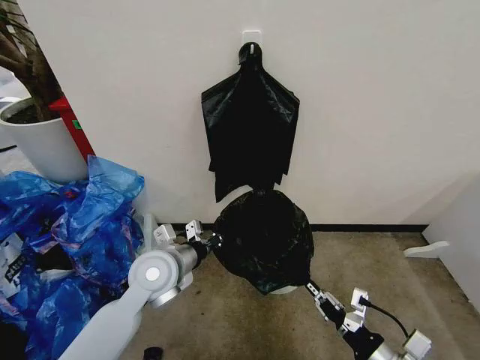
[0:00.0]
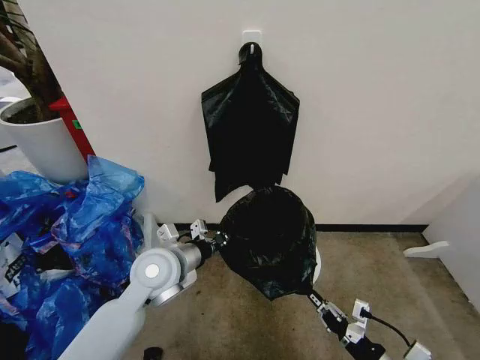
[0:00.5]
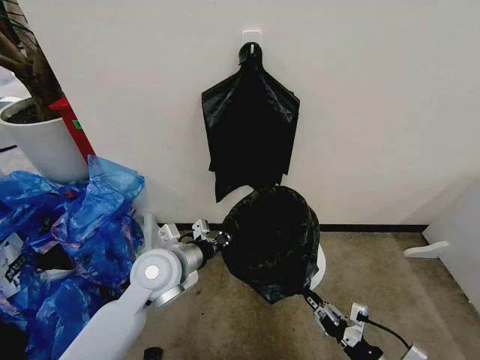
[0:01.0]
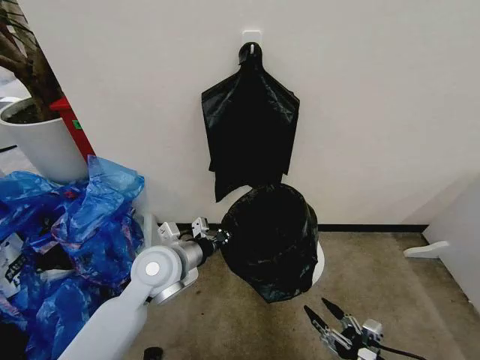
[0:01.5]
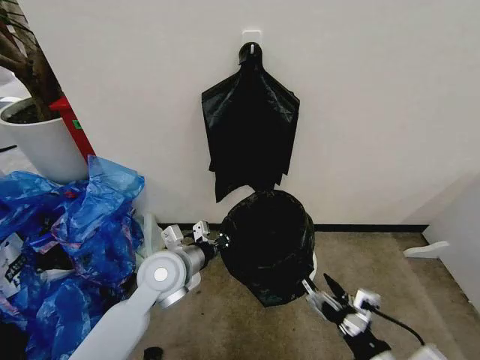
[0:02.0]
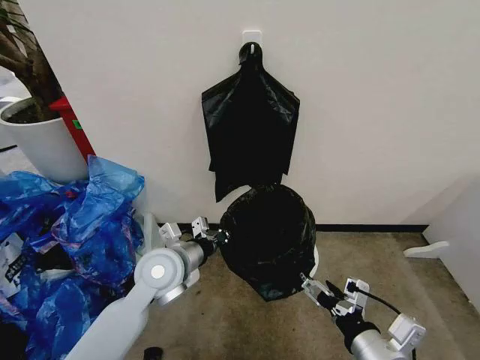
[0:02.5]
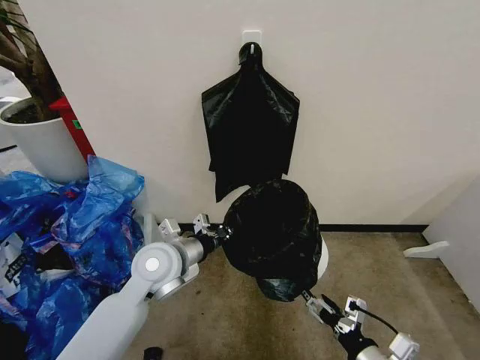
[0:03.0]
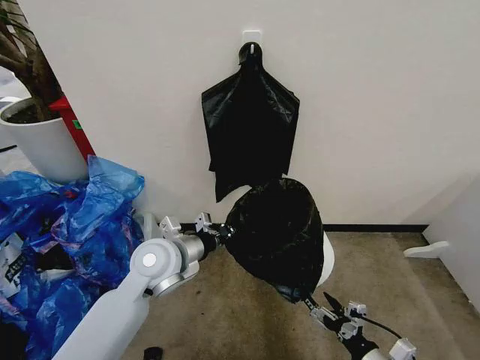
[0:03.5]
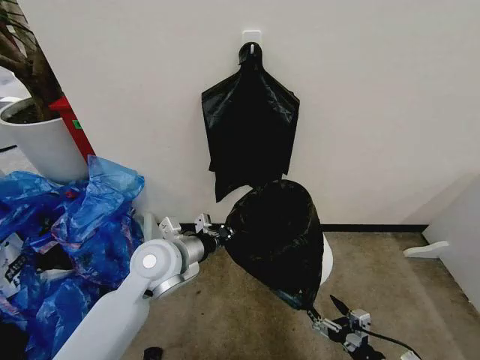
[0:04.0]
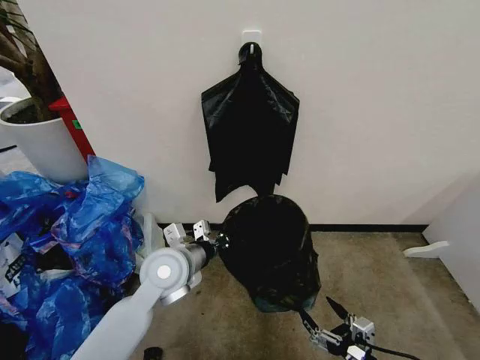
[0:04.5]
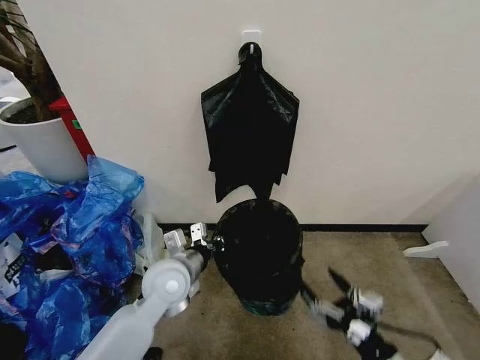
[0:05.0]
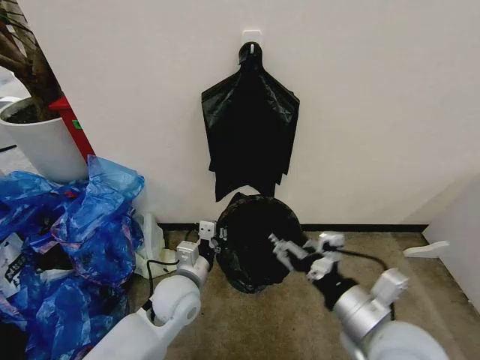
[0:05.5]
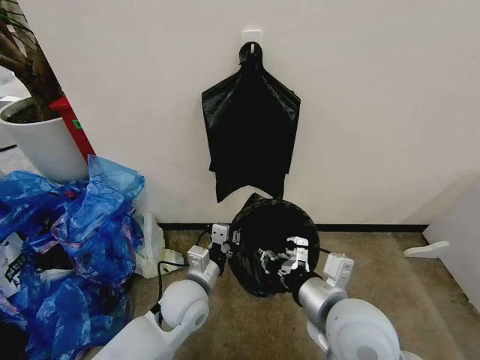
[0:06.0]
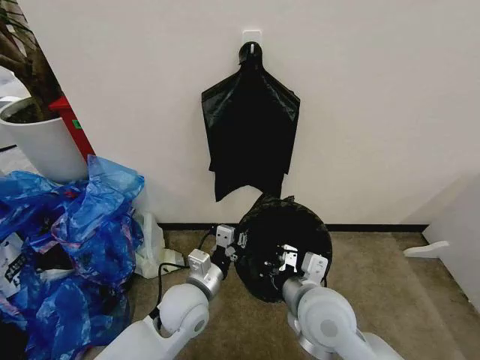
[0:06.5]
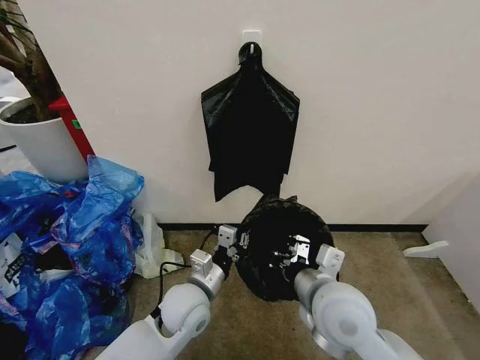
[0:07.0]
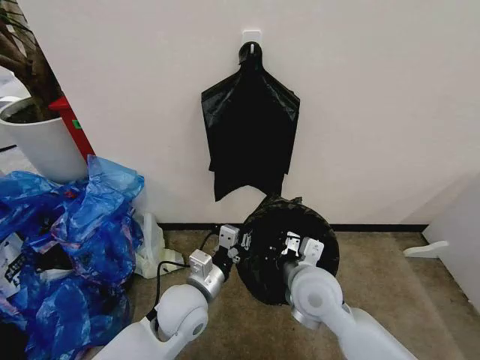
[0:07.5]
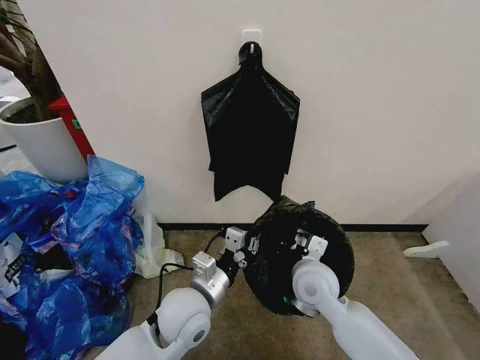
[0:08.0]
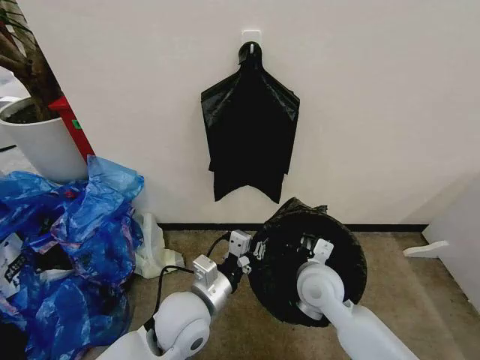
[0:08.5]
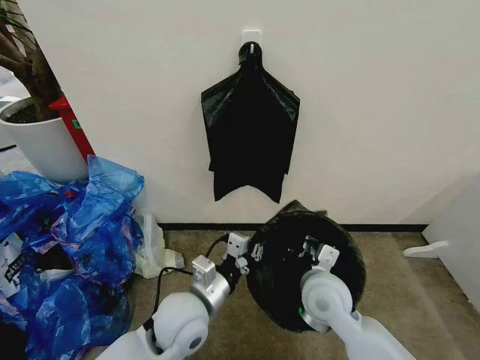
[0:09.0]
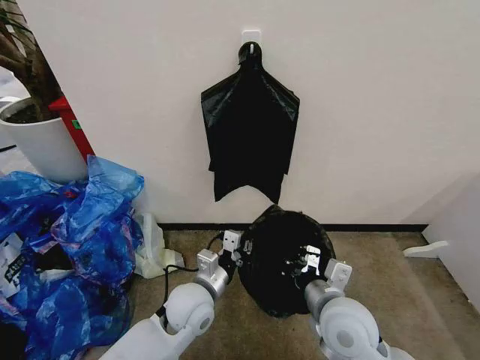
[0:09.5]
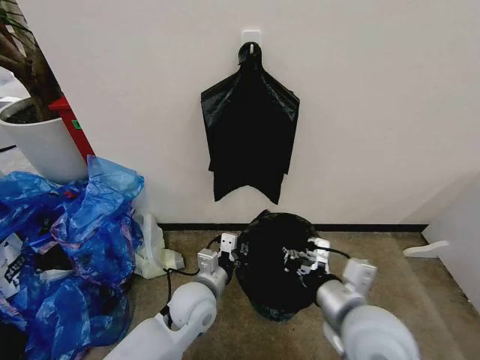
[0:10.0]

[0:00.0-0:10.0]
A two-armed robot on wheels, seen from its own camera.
Task of the whole recording: Place the garbage bag over the trash bin.
0:00.0 to 0:02.0: The right gripper goes approximately 5 cm upward, and opens its fingers.
0:02.0 to 0:04.0: The right gripper goes some 15 cm downward and to the right.
0:04.0 to 0:06.0: The left gripper heads downward, covering roughly 10 cm. Meanwhile the right gripper is displaced upward, to the left and forward by about 30 cm, and closes up.
0:06.0 to 0:08.0: The left gripper shifts by some 5 cm; the right gripper is displaced forward and downward by approximately 15 cm.
0:08.0 to 0:10.0: The right gripper goes roughly 15 cm backward and upward; the left gripper moves approximately 5 cm.

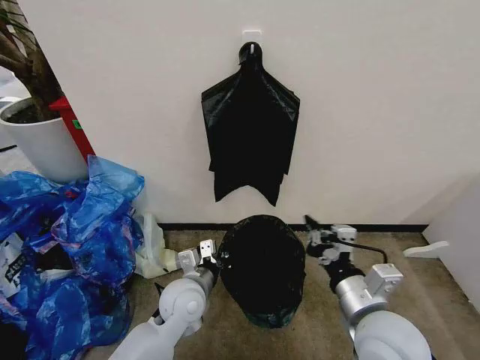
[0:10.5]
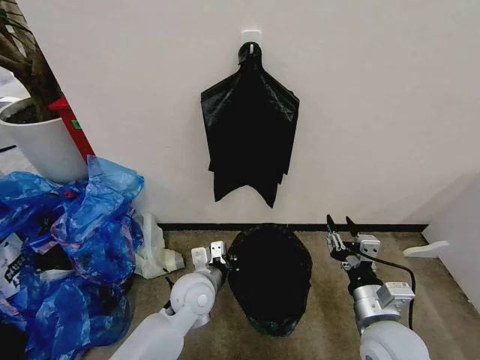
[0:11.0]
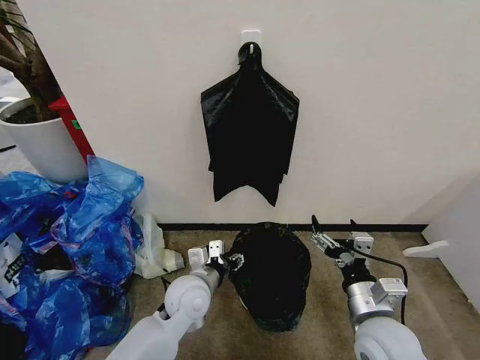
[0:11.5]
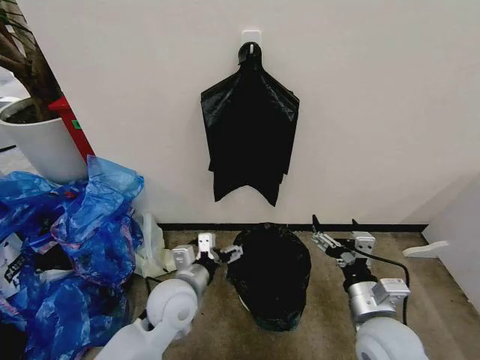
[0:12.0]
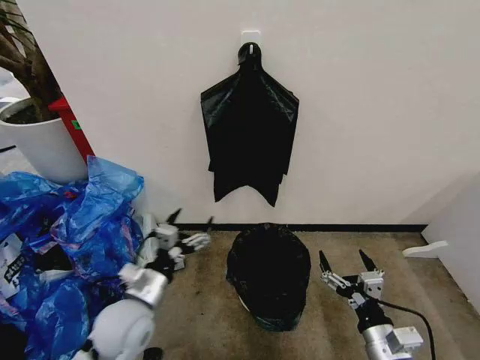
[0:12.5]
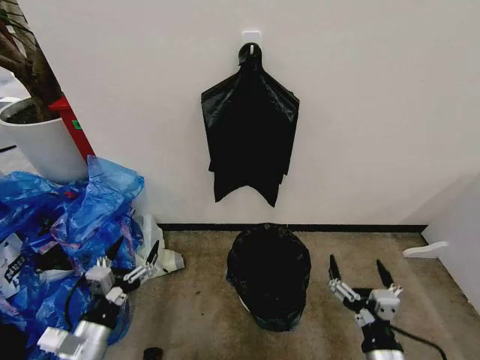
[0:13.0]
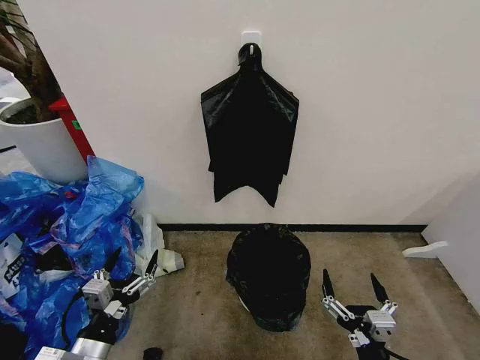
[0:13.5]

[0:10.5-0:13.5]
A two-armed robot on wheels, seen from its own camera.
Task of the whole recording: Place the garbage bag over the trash bin.
0:10.5 to 0:12.0: The right gripper moves downward, roughly 5 cm, and opens up, while the left gripper opens its fingers.
0:12.0 to 0:13.5: The right gripper heads backward and downward, covering roughly 15 cm, while the left gripper shifts approximately 20 cm backward and to the left.

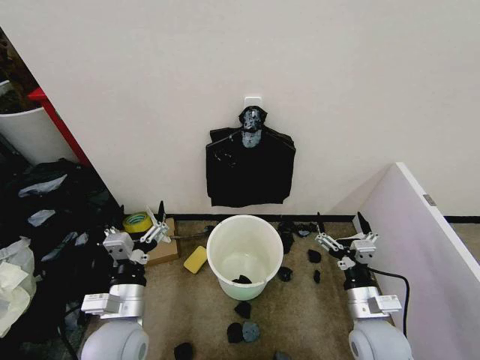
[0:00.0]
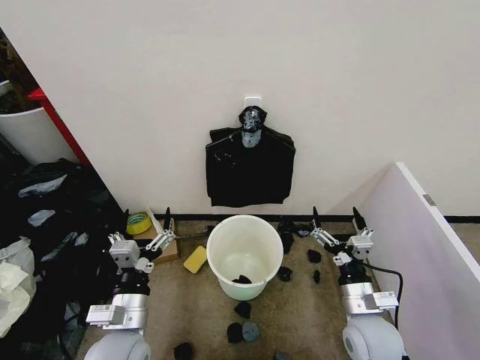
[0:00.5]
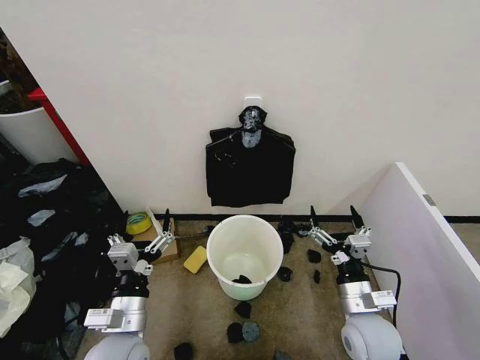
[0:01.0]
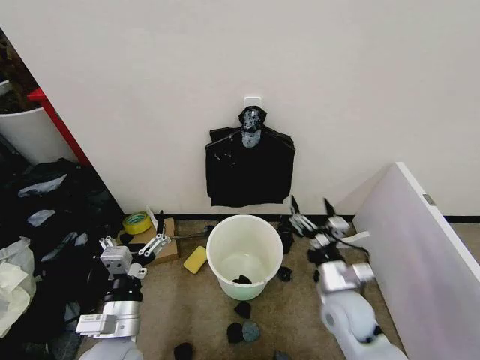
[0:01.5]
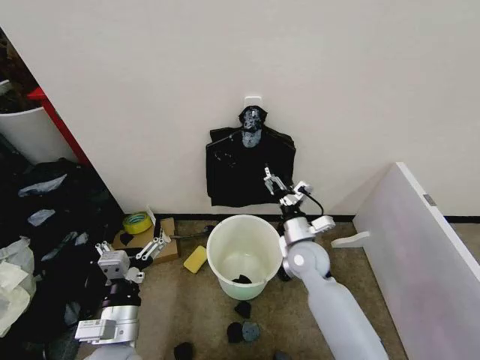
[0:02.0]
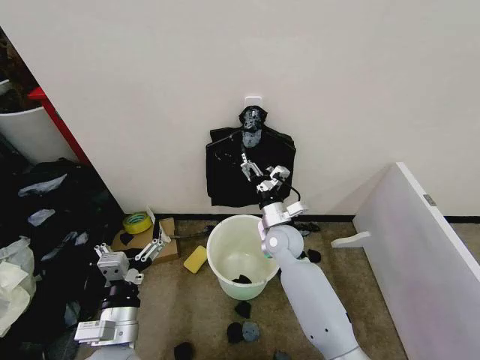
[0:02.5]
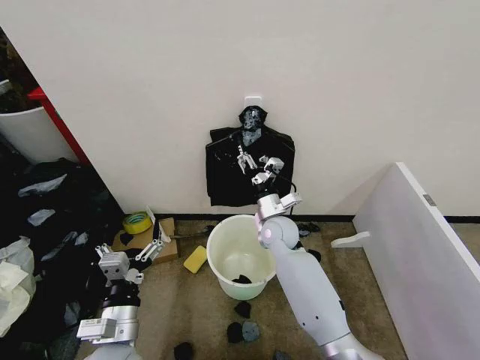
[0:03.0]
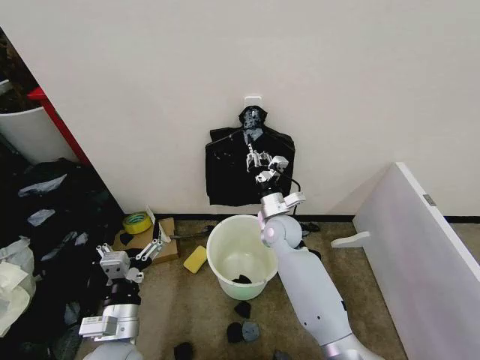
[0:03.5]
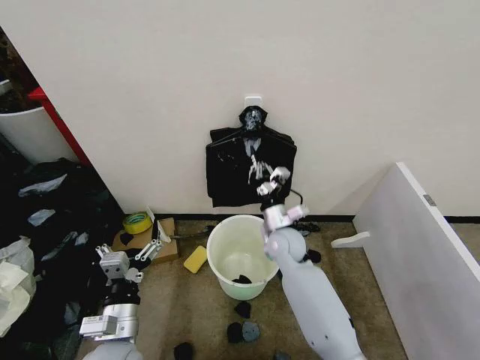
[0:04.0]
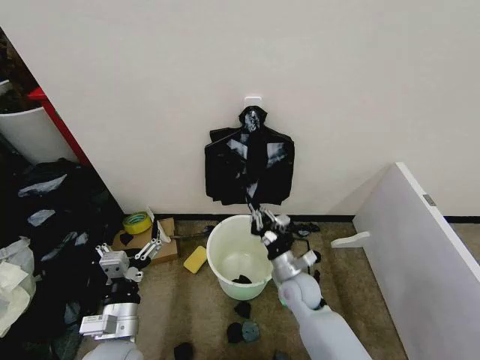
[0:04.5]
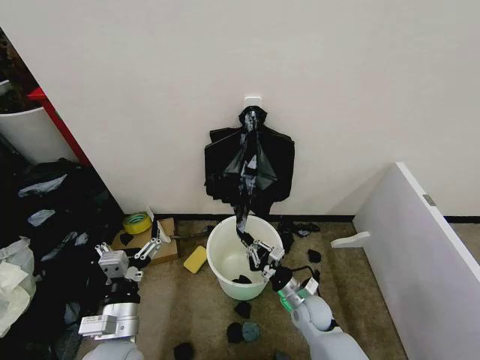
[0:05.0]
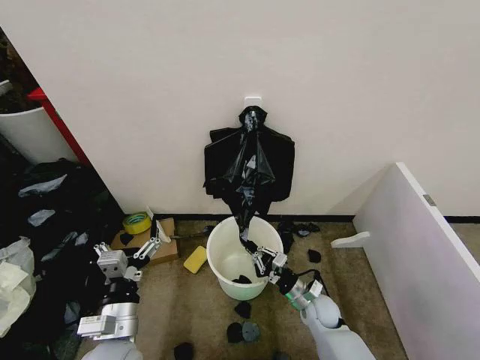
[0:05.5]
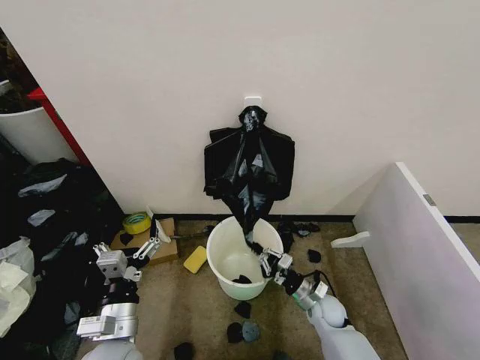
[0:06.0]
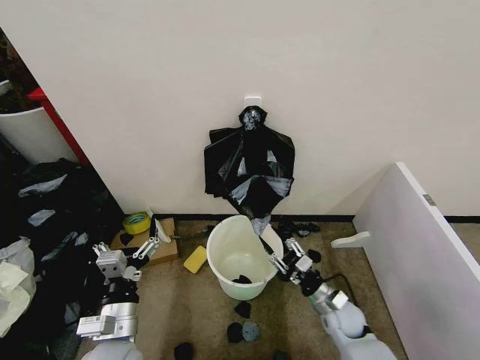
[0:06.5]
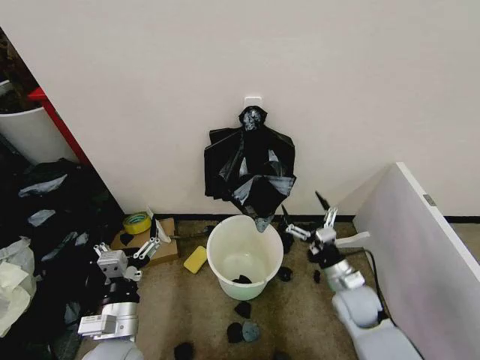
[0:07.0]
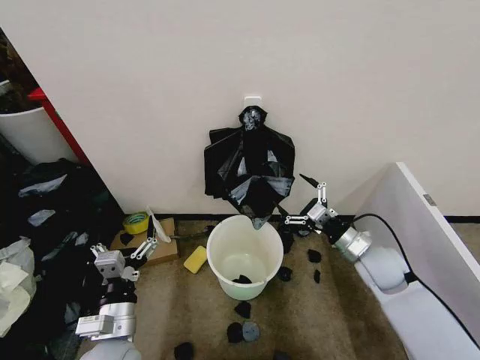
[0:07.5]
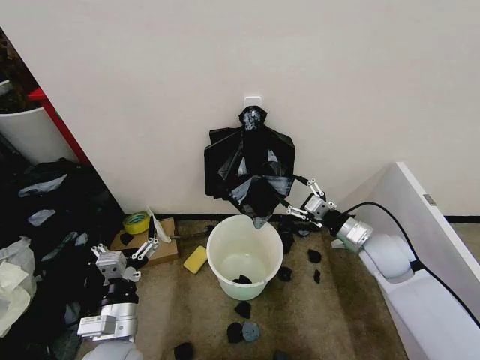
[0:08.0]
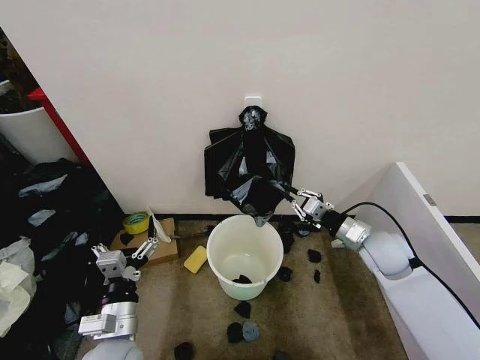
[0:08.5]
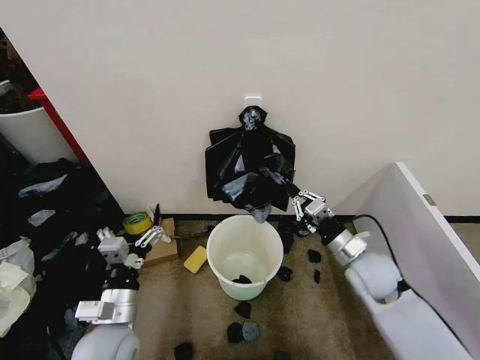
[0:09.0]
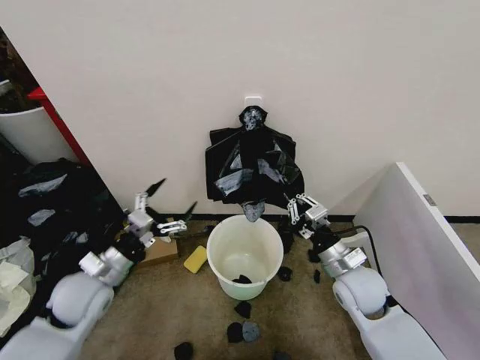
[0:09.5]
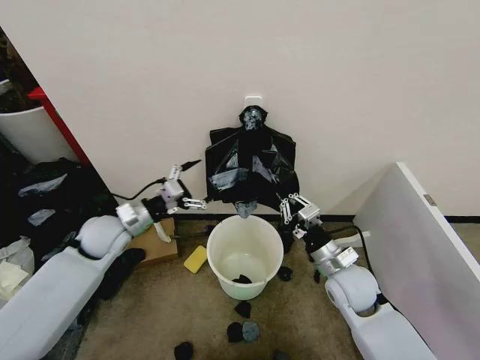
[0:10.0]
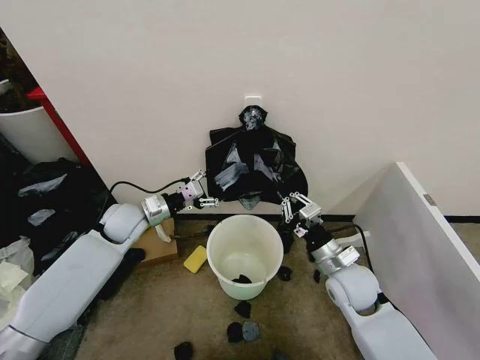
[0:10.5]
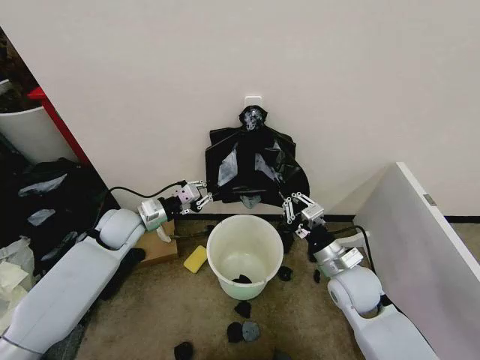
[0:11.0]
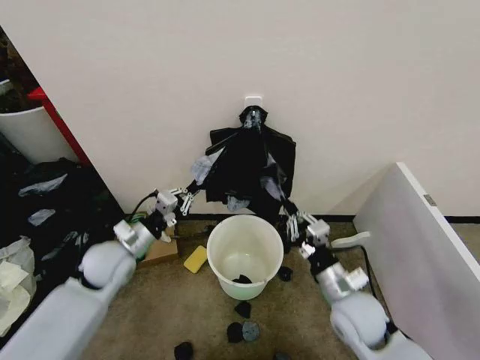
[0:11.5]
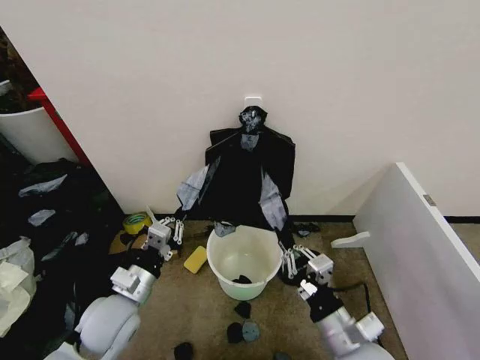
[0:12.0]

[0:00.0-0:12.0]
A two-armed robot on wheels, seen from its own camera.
Task of the whole recording: Place the garbage bag over the trash bin.
0:02.0 to 0:04.0: The right gripper goes some 10 cm to the left and forward, and closes its fingers.
0:04.0 to 0:06.0: The right gripper shifts some 25 cm downward, to the right and backward.
0:06.0 to 0:08.0: The right gripper travels upward by some 25 cm, and opens.
0:08.0 to 0:10.0: The right gripper goes about 10 cm to the left and backward, and closes; the left gripper heads forward, covering some 25 cm.
0:10.0 to 0:12.0: Both grippers travel together backward, approximately 15 cm. The left gripper closes.
